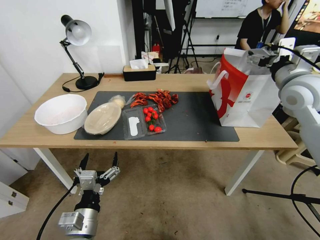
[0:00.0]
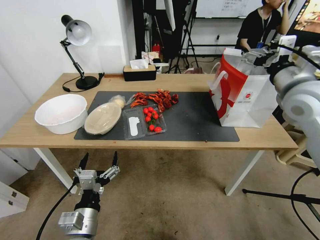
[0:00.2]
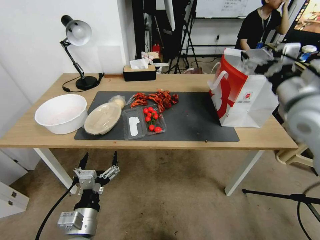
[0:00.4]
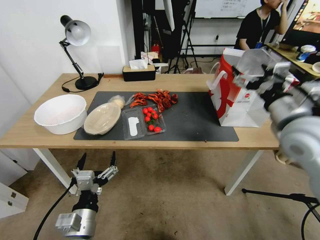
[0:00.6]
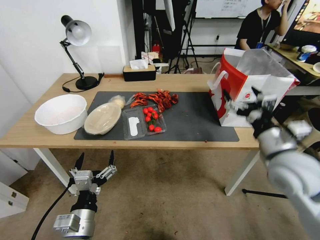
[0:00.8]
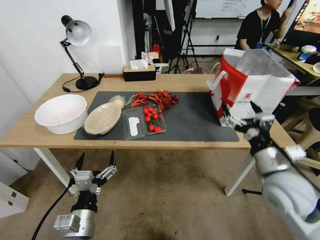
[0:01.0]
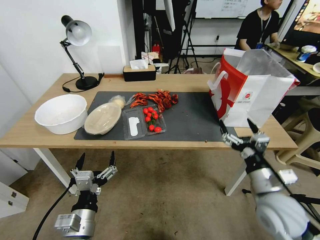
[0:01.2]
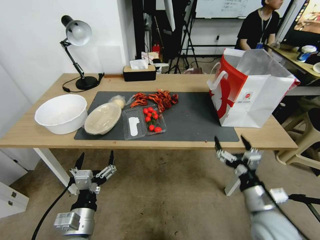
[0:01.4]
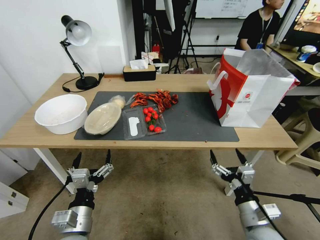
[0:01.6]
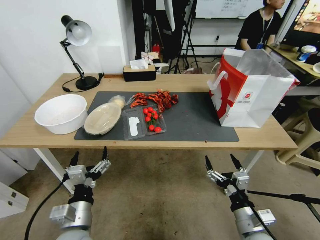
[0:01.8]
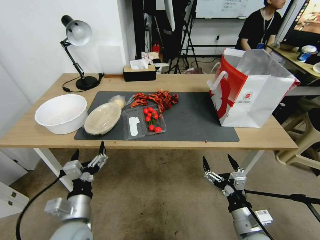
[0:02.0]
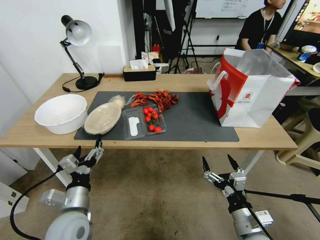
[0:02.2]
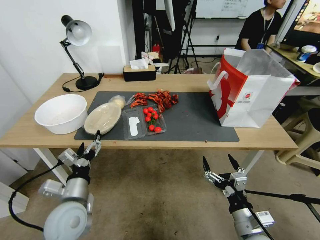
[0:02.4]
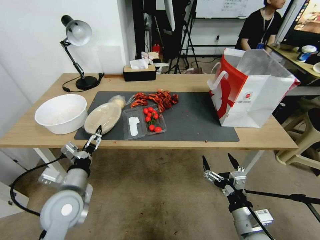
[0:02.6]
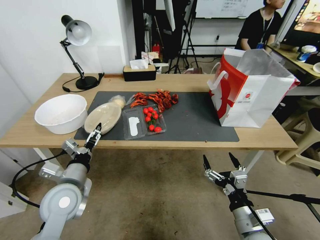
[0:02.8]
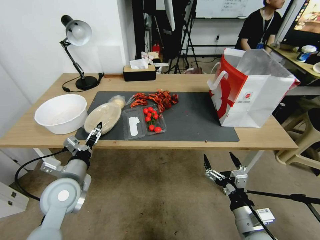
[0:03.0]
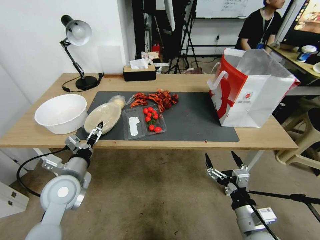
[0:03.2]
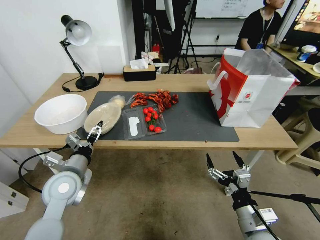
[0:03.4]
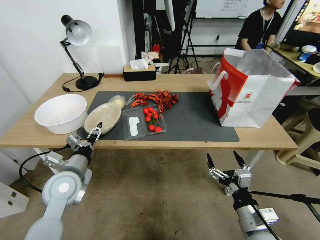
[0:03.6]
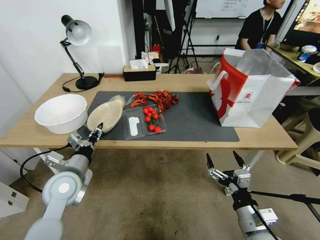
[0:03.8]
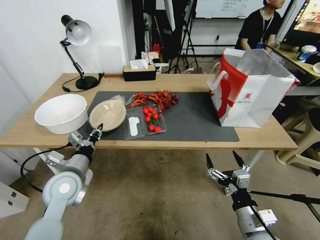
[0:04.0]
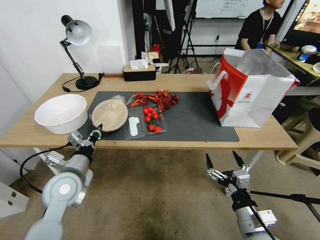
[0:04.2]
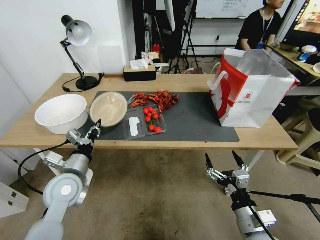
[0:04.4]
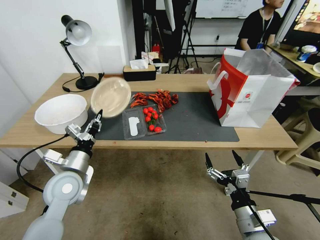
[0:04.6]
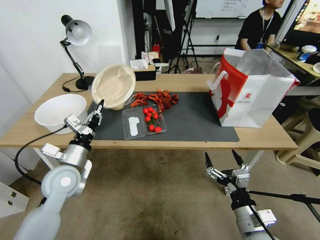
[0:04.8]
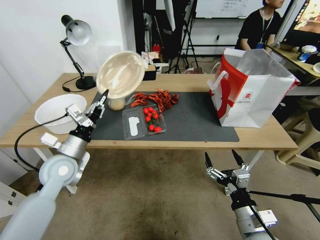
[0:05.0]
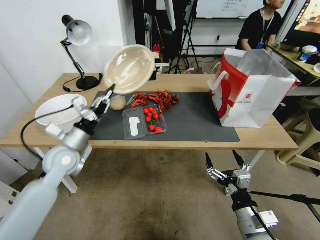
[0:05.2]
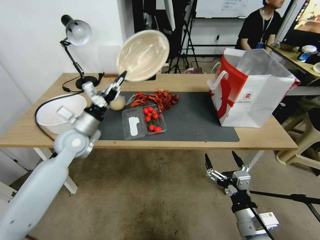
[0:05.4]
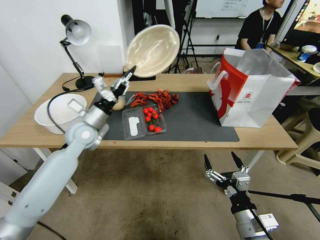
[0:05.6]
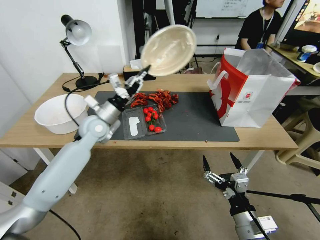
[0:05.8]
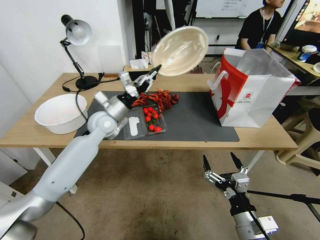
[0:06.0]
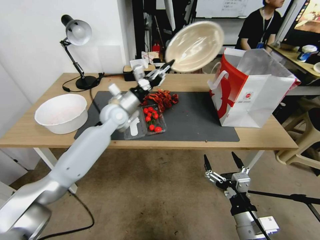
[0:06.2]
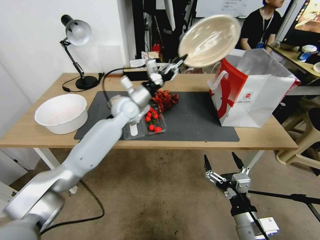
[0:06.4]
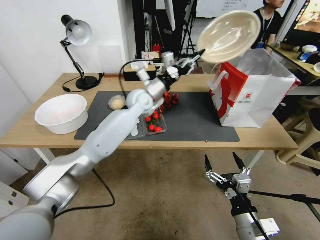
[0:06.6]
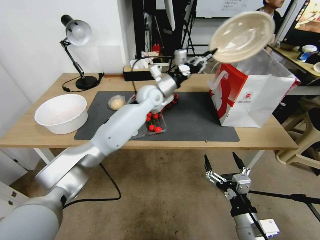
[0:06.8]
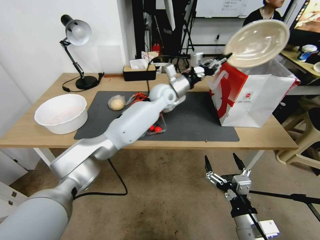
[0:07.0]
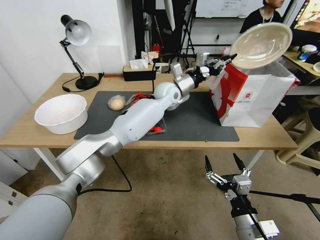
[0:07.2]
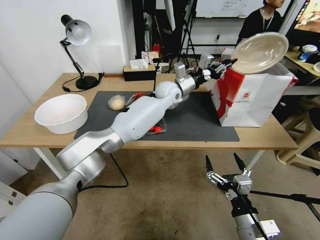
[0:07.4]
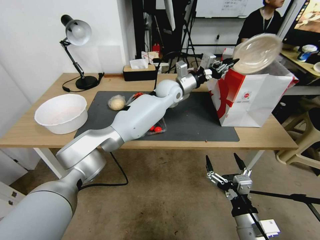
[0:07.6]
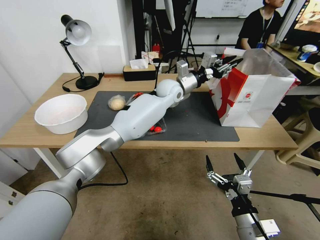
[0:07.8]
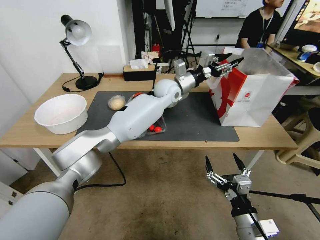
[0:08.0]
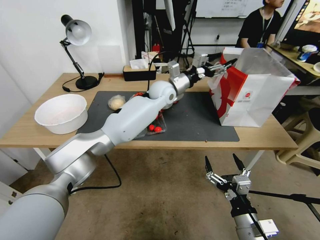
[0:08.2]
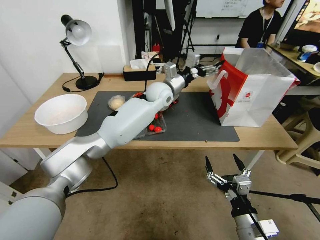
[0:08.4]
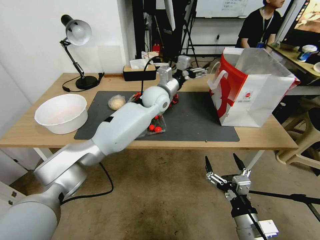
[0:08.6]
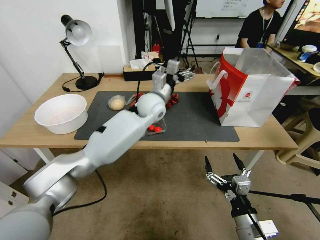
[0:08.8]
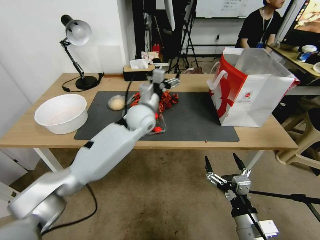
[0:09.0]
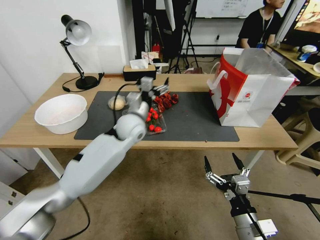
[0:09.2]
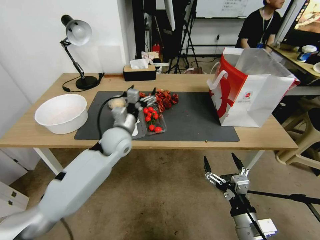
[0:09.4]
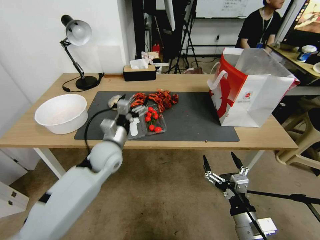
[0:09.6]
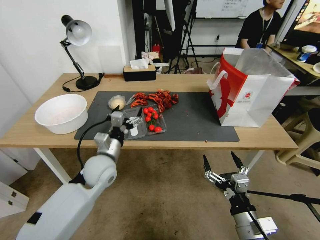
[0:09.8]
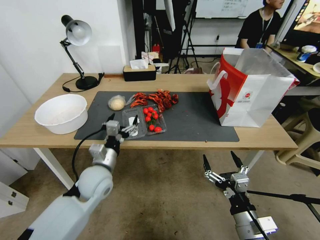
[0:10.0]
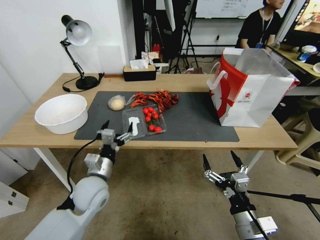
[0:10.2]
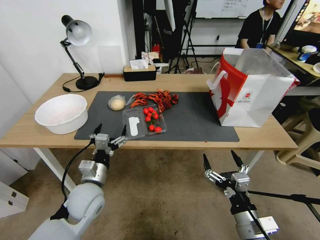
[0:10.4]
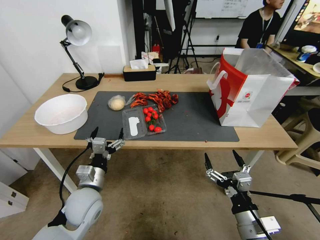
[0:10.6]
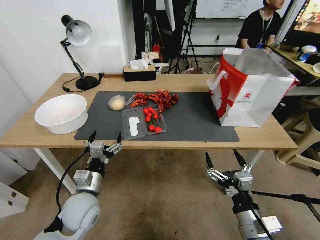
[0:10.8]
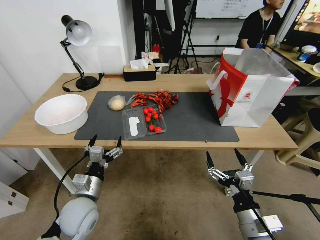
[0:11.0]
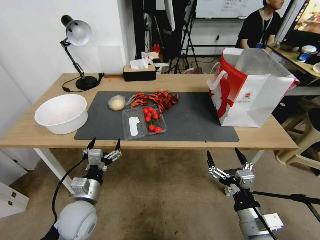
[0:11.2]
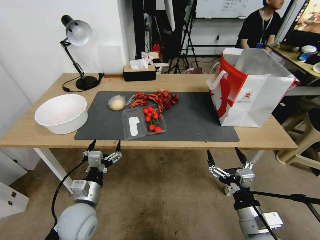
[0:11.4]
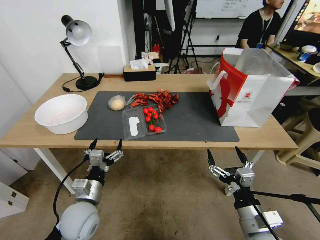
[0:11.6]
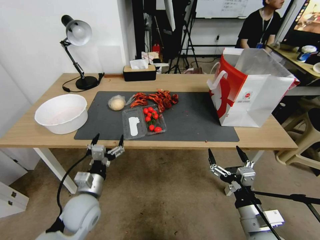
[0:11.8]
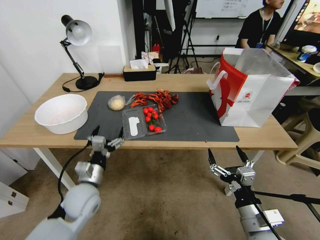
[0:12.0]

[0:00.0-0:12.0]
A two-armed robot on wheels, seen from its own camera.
0:00.0 to 0:01.6: The right gripper shifts some 40 cm downward and backward.
0:01.6 to 0:03.0: The left gripper moves forward, approximately 10 cm.
0:03.0 to 0:04.4: The left gripper closes.
0:04.4 to 0:06.0: The left gripper shifts roughly 15 cm forward.
0:06.0 to 0:07.6: The left gripper moves to the right and forward, about 30 cm.
0:07.6 to 0:09.0: The left gripper travels backward and to the left by some 15 cm, and opens up.
0:09.0 to 0:10.4: The left gripper heads backward, to the left and downward, covering roughly 30 cm.
0:10.4 to 0:12.0: There are only small adjustments of the grippers.

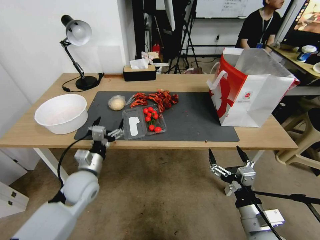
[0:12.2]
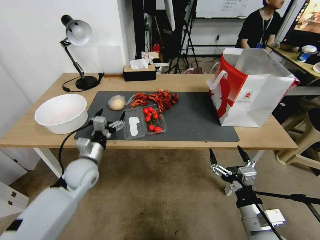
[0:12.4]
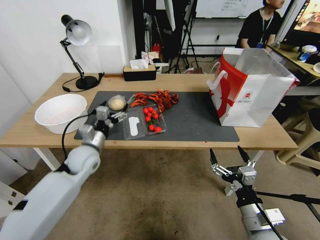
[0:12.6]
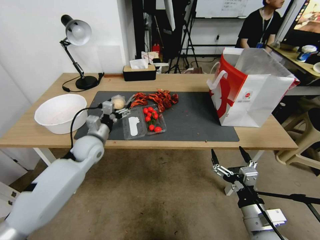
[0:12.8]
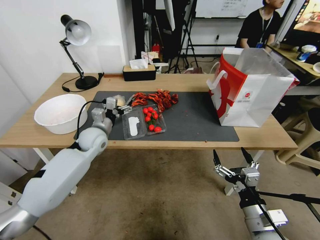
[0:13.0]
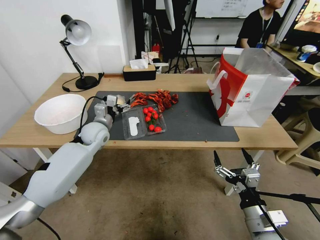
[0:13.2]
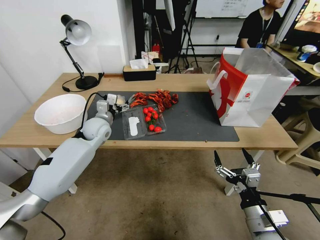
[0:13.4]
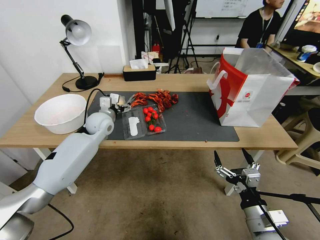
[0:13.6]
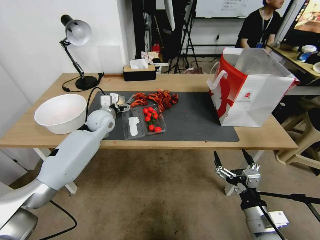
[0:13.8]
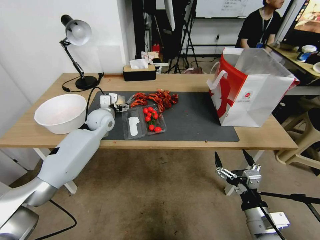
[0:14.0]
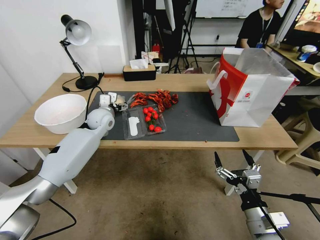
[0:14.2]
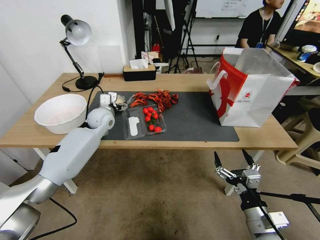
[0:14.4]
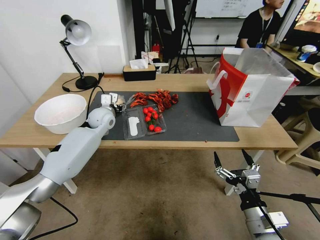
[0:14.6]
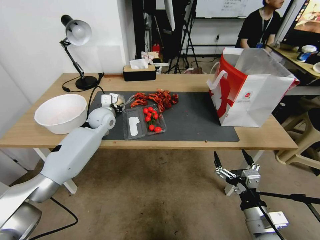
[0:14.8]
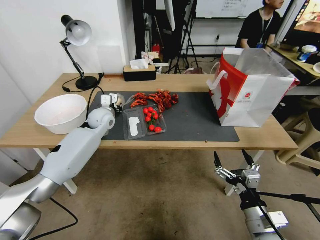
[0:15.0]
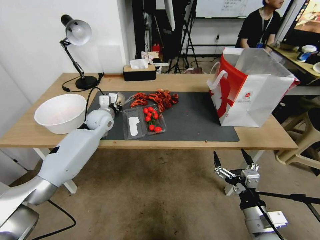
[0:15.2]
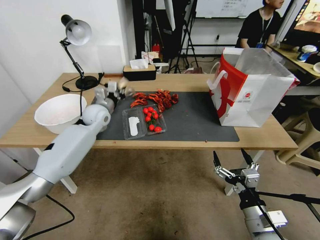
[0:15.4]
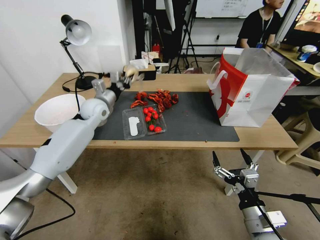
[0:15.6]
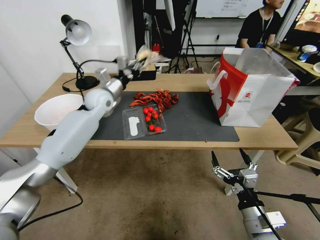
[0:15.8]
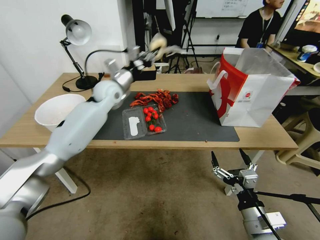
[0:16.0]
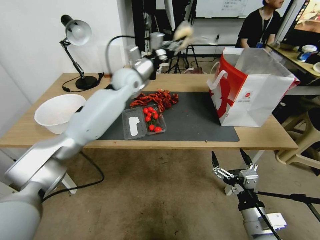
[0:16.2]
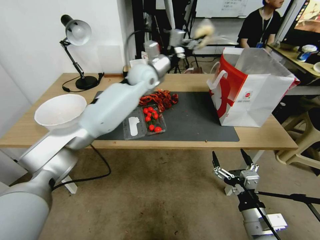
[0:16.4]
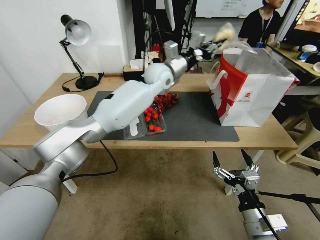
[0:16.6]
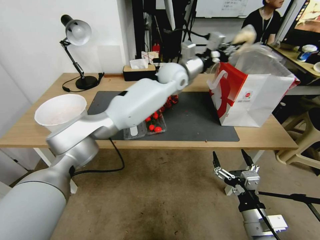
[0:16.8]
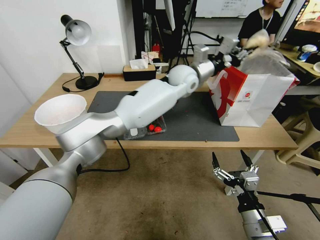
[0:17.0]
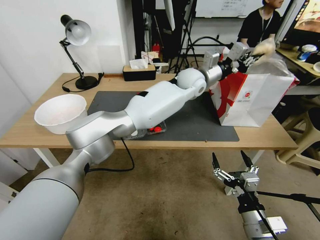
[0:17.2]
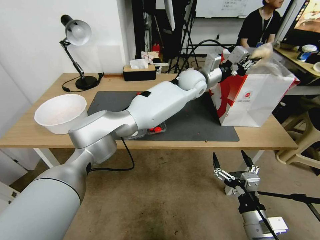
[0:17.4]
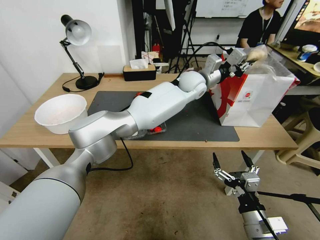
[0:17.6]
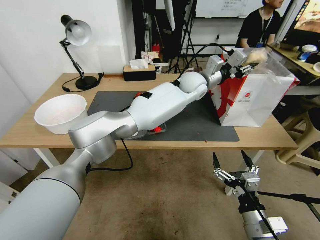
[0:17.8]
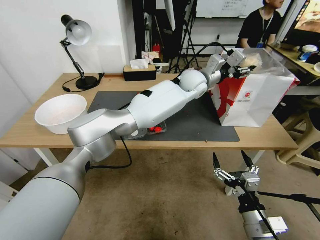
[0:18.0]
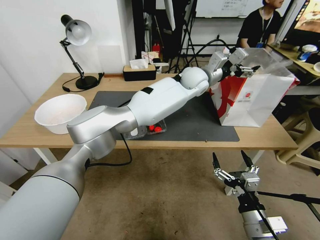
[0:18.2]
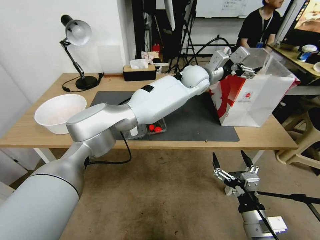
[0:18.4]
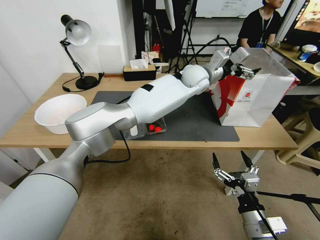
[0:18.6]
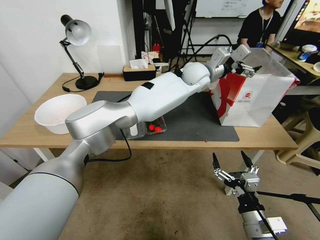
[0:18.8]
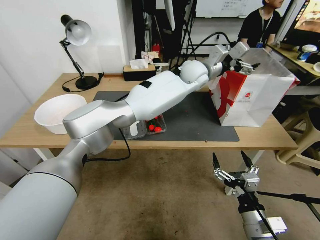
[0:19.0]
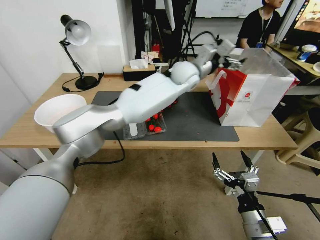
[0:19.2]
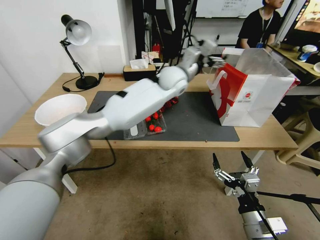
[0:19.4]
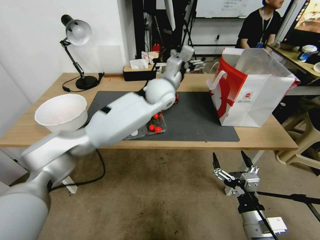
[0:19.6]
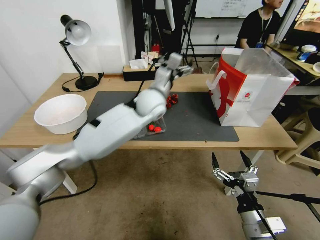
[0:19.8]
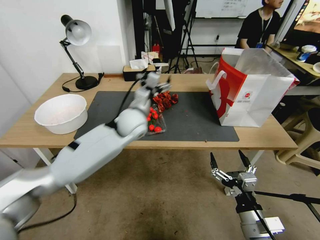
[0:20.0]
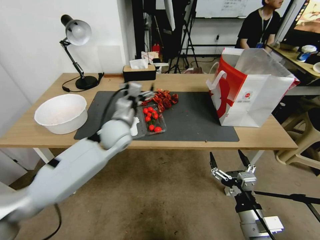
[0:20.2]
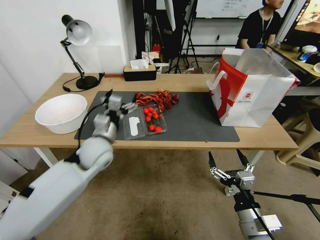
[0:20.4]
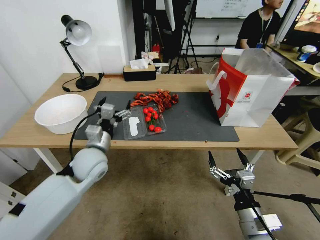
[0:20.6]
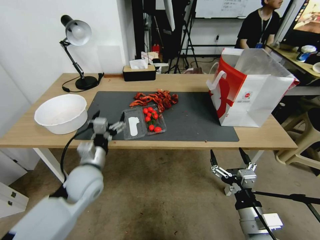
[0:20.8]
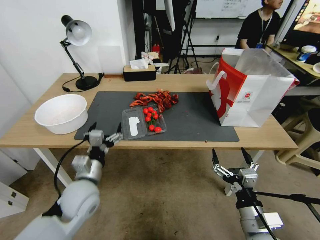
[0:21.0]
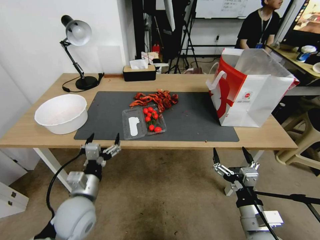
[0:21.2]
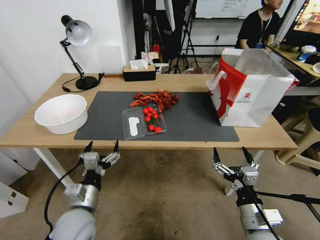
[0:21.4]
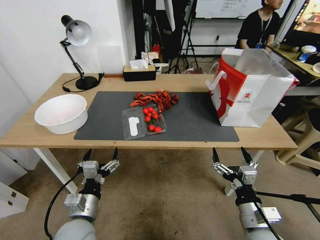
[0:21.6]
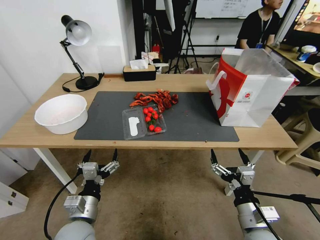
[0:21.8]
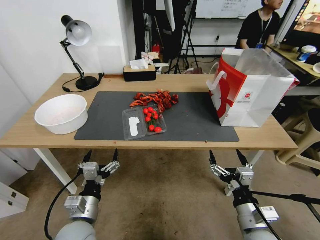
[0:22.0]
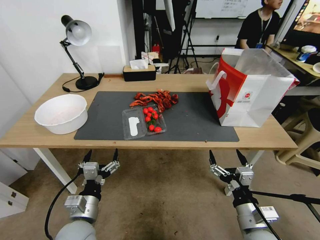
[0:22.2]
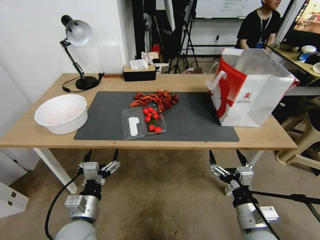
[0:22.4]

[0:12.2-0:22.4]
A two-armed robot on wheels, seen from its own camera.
0:12.2 to 0:13.6: The left gripper heads forward, covering some 20 cm.
0:13.6 to 0:15.2: The left gripper closes its fingers.
0:15.2 to 0:16.6: The left gripper is displaced to the right and upward by approximately 30 cm.
0:16.6 to 0:18.0: The left gripper shifts some 10 cm to the right, and opens its fingers.
0:18.0 to 0:19.4: The left gripper travels to the left by approximately 5 cm, and opens up.
0:19.4 to 0:21.0: The left gripper shifts about 50 cm backward, to the left and downward.
0:21.0 to 0:22.4: The left gripper goes approximately 10 cm backward.
